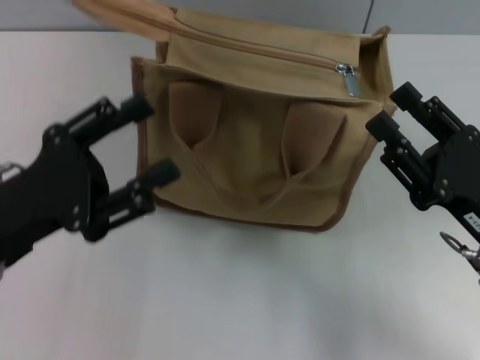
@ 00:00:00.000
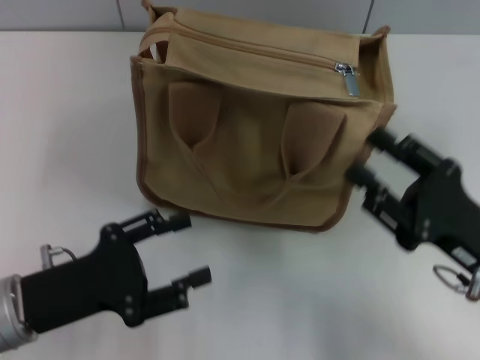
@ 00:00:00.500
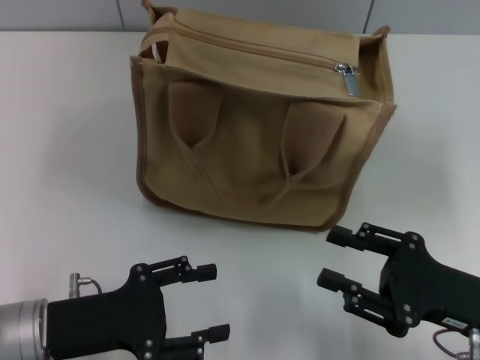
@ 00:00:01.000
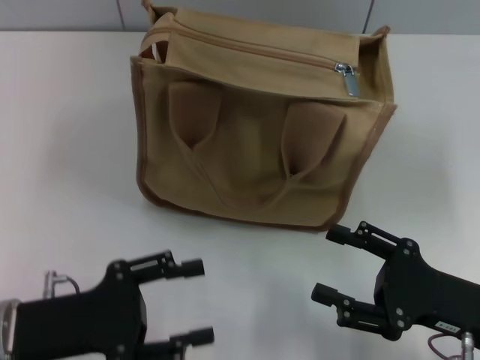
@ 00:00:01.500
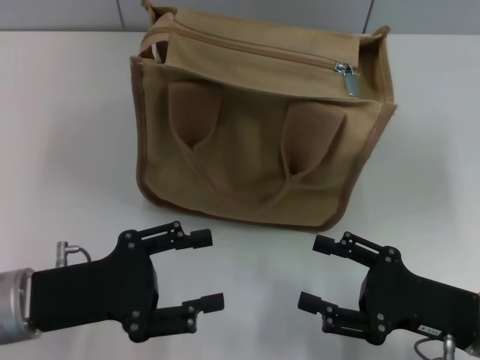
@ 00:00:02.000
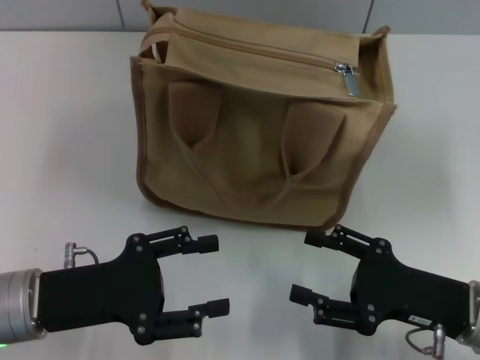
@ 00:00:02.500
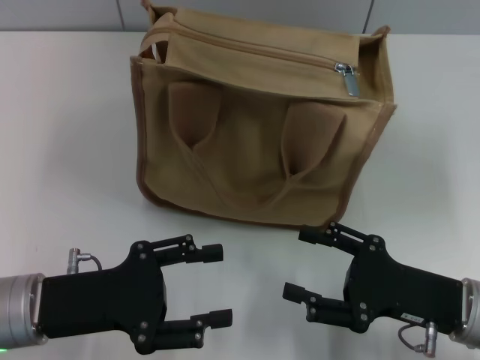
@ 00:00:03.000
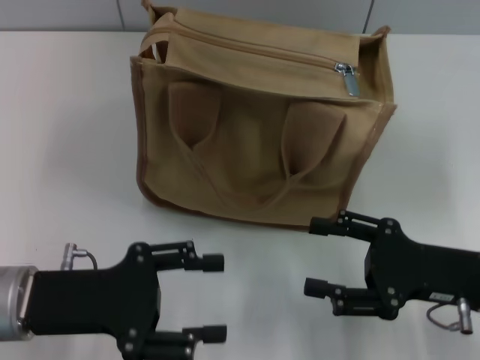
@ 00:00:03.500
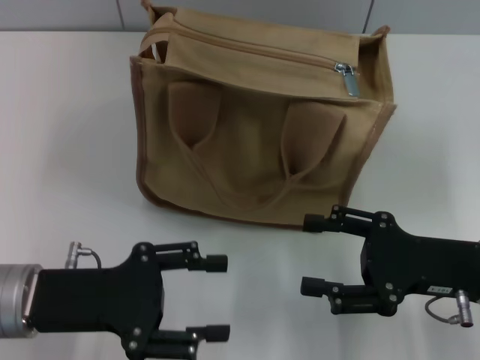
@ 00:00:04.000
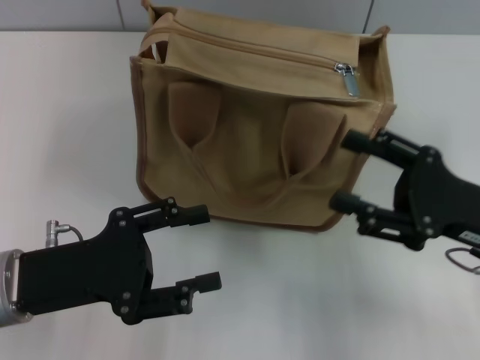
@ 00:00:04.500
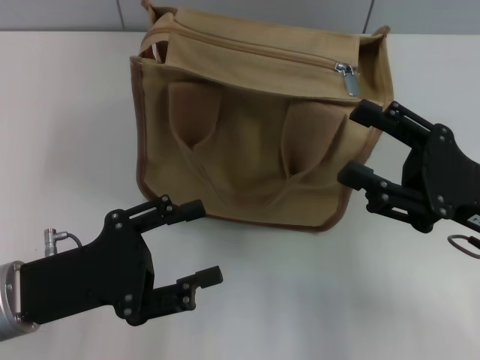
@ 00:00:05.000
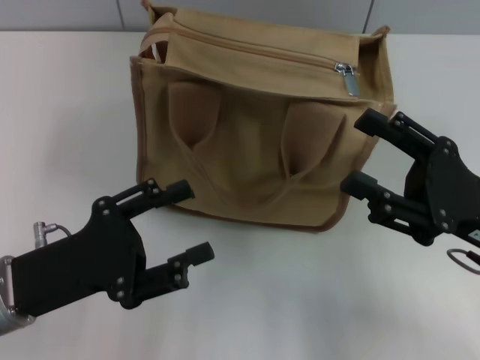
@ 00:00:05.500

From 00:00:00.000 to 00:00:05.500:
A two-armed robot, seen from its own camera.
From 00:00:02.000 to 00:00:03.500: The right gripper moves some 5 cm.
